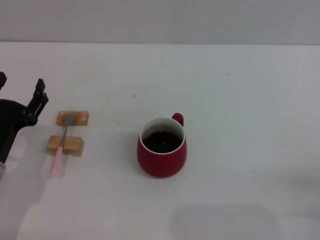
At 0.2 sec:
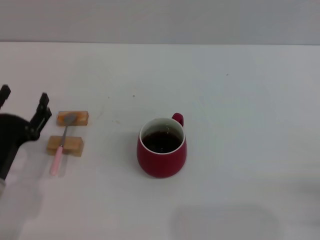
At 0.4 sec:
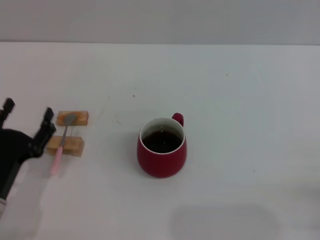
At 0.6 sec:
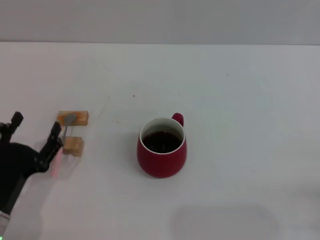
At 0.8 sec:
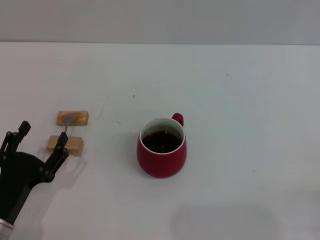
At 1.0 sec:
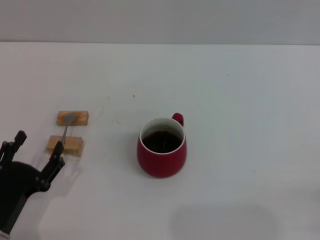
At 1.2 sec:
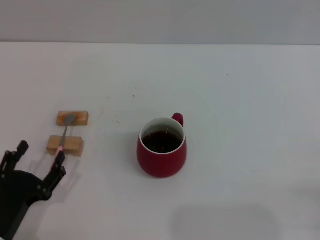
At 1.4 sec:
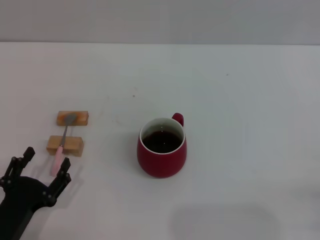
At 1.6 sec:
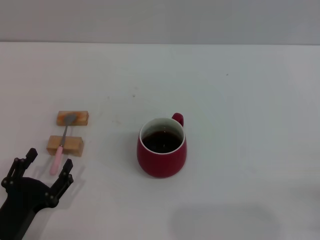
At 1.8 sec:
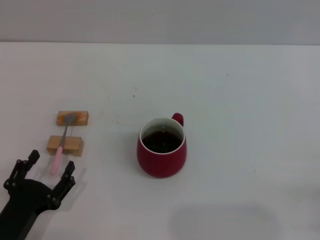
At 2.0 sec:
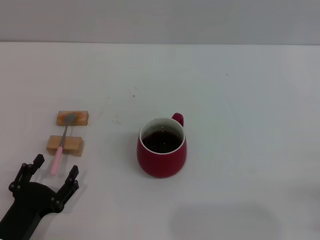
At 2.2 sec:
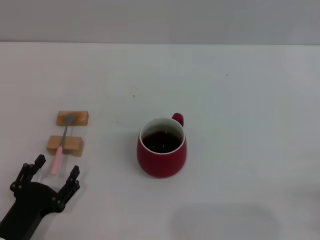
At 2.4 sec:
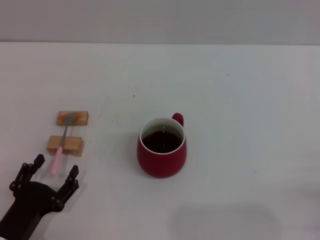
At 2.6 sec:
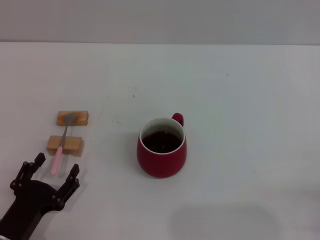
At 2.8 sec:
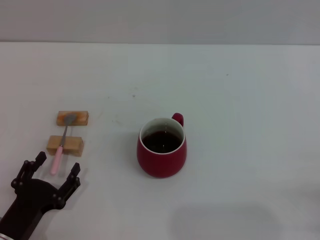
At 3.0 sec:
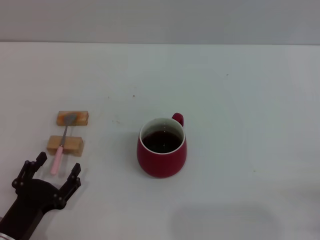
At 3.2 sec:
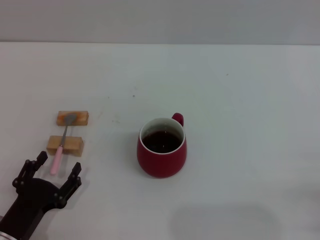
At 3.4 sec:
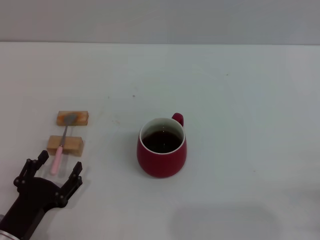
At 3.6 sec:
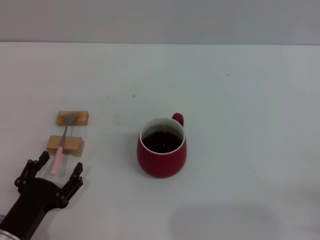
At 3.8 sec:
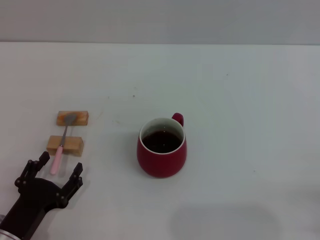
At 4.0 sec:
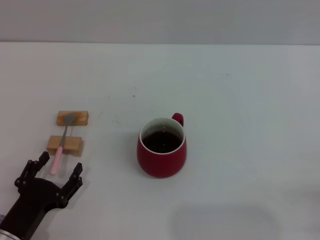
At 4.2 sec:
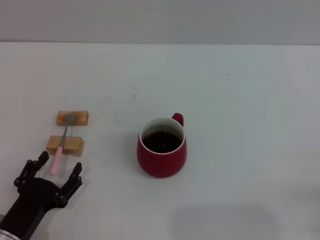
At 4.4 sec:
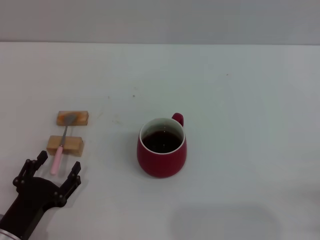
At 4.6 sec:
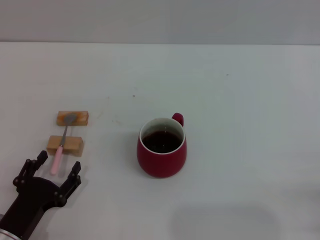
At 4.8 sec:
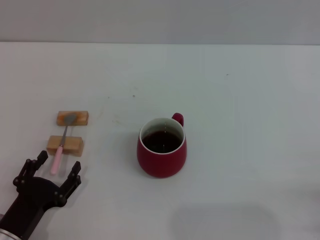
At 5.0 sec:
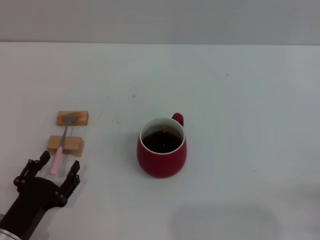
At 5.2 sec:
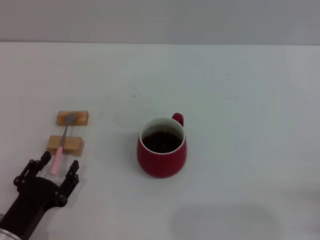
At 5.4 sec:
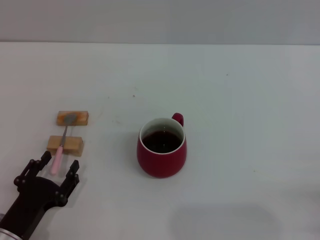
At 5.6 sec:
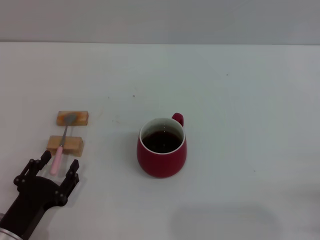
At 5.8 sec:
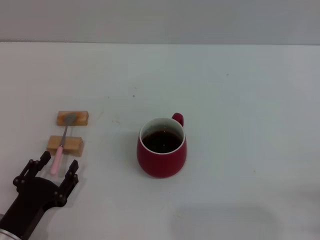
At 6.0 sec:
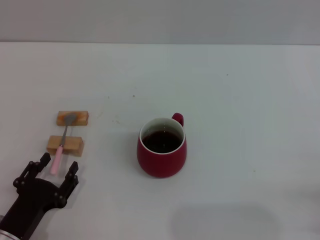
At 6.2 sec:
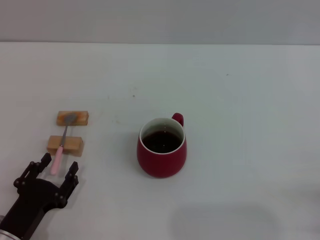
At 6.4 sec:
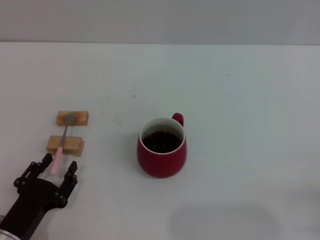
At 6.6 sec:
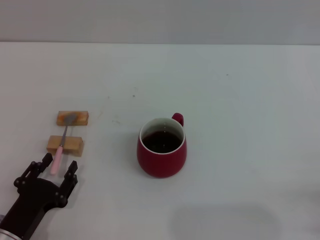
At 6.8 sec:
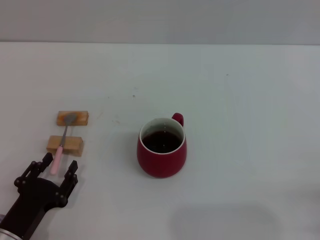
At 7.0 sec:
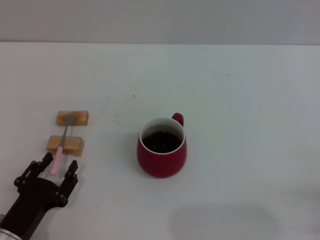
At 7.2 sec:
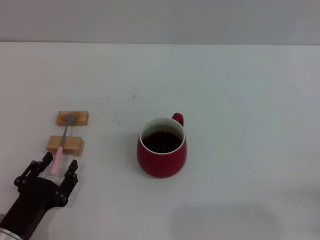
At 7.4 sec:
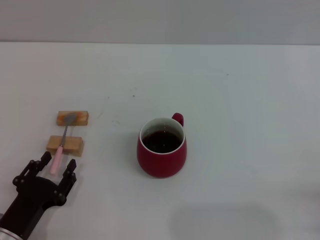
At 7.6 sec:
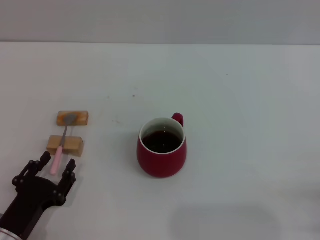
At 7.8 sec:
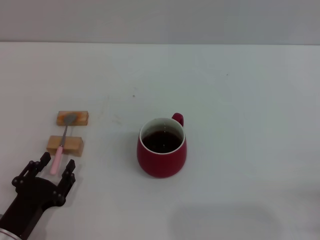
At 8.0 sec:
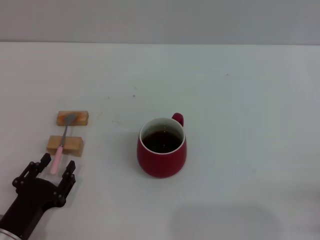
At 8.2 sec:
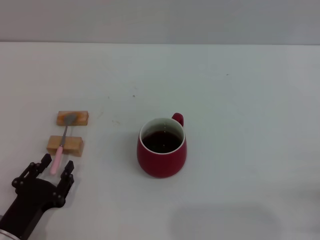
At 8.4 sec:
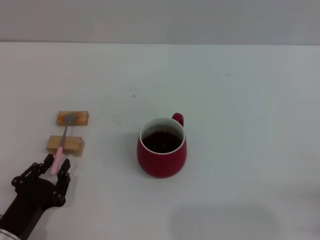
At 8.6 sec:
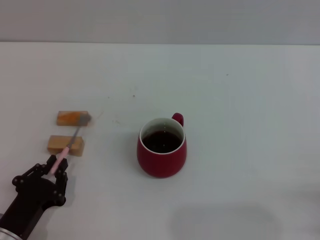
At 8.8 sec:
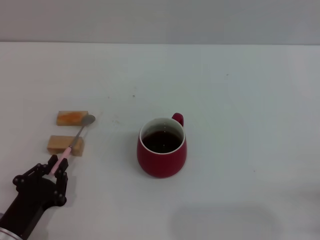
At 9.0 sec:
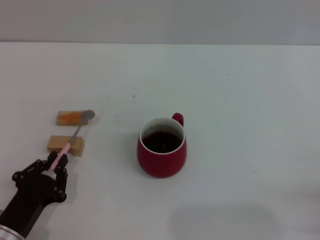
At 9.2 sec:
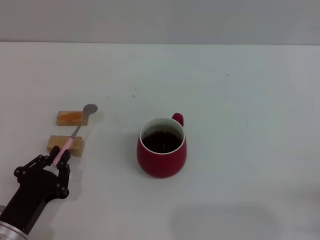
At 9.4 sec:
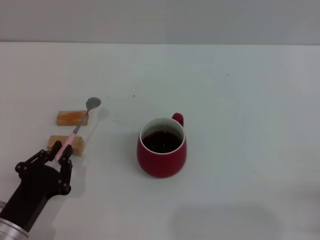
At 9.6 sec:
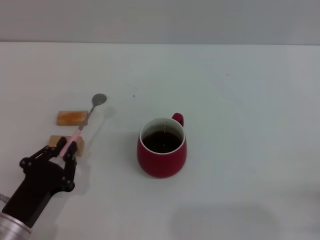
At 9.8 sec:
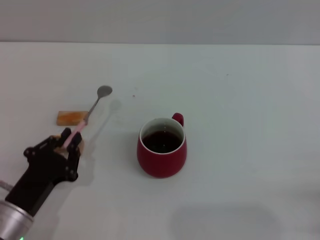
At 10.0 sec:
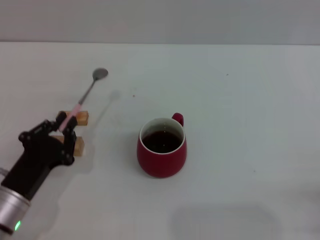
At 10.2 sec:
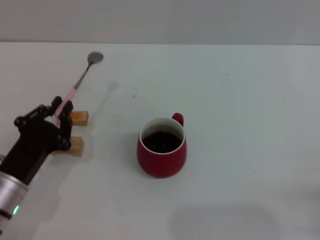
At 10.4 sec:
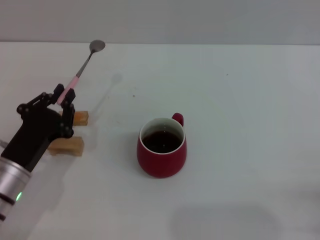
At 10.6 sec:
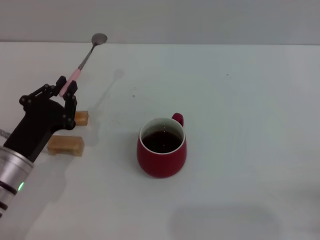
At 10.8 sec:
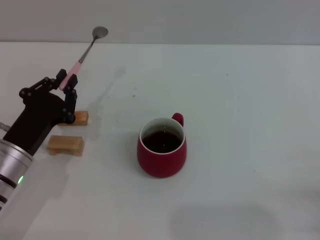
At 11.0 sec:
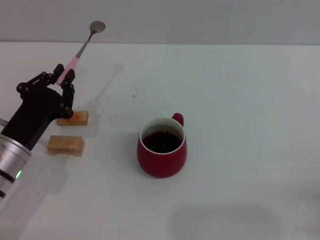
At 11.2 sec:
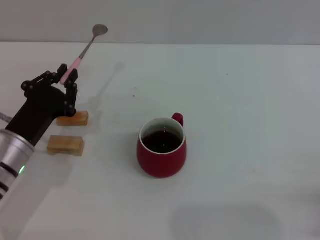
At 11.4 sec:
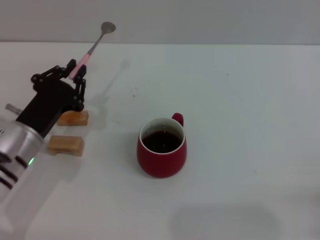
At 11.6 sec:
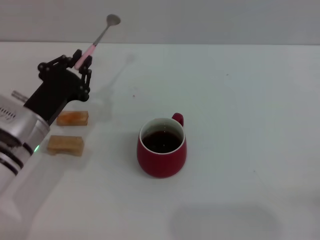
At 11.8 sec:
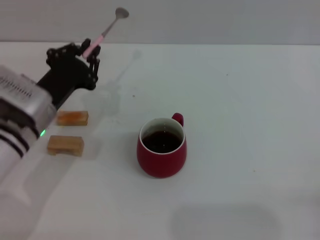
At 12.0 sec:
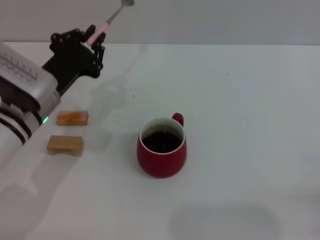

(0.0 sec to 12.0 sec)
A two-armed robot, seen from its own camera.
Task of the whole recording: Move the red cup to the center, lift the pink spoon, stir it three times in the cup, and put the spoon into the cup.
Step, 0.0 sec - 10.2 sec: Pick up the spoon with the left gripper.
0.0 sec - 1.6 sec: The left gripper goes about 10 cm backward.
1.6 sec - 4.4 sec: Neither gripper changes place.
4.4 sec - 7.6 sec: Both grippers stay about where they are.
7.6 sec - 9.0 sec: The left gripper closes up.
9.0 sec - 10.4 sec: The left gripper is displaced forward by about 10 cm.
10.4 sec - 12.0 sec: The left gripper shifts about 10 cm forward and upward.

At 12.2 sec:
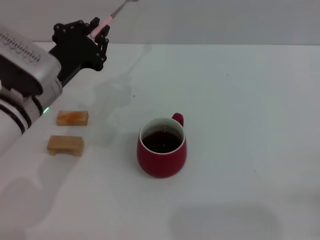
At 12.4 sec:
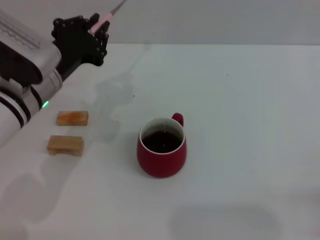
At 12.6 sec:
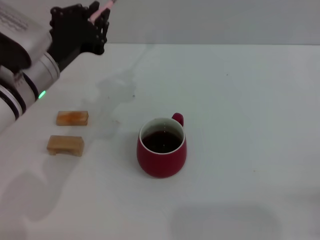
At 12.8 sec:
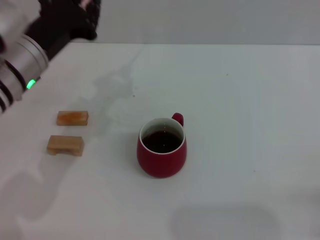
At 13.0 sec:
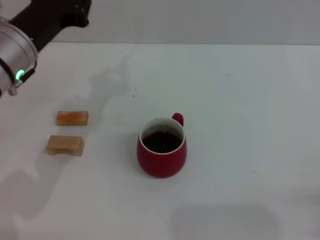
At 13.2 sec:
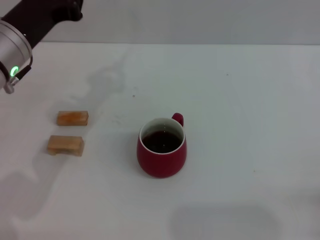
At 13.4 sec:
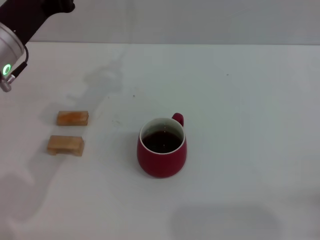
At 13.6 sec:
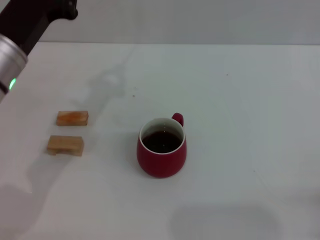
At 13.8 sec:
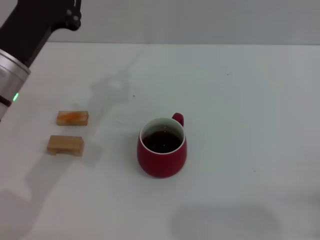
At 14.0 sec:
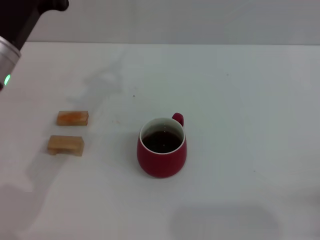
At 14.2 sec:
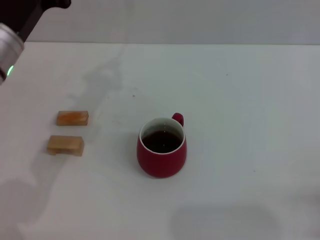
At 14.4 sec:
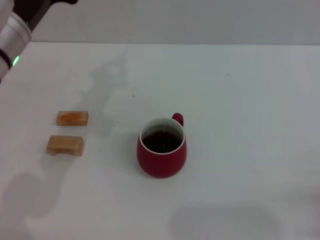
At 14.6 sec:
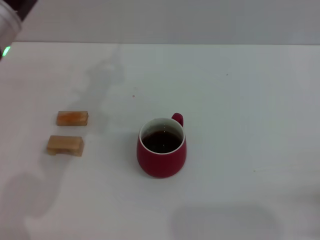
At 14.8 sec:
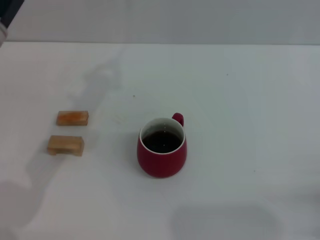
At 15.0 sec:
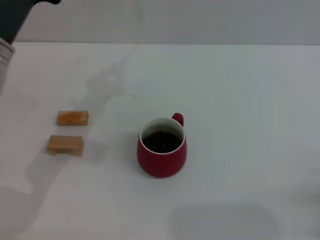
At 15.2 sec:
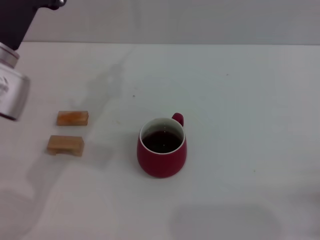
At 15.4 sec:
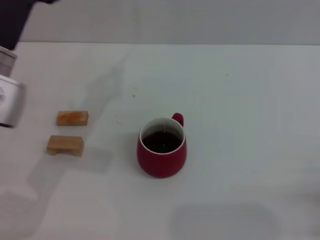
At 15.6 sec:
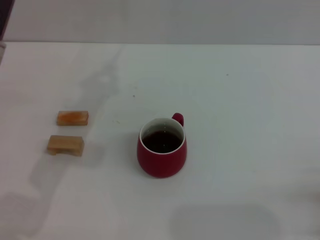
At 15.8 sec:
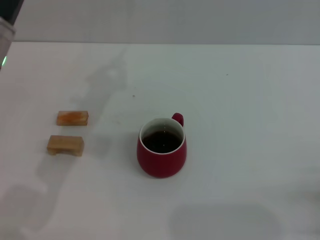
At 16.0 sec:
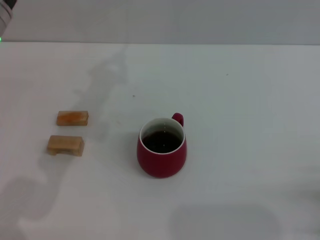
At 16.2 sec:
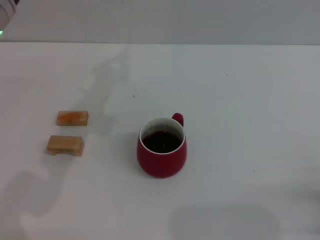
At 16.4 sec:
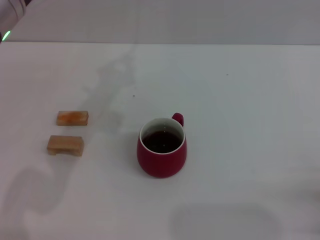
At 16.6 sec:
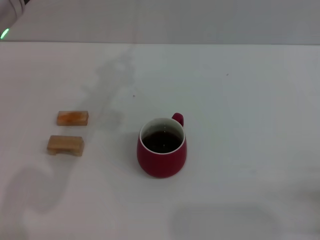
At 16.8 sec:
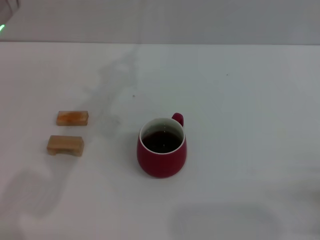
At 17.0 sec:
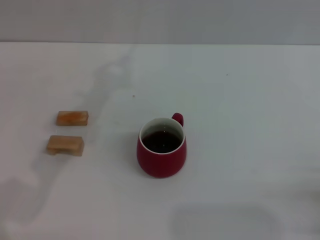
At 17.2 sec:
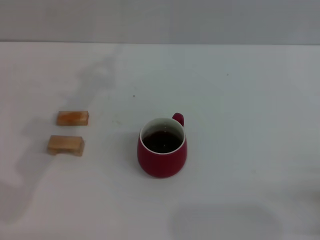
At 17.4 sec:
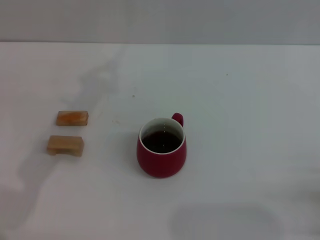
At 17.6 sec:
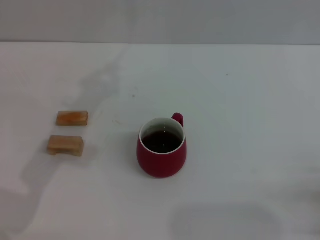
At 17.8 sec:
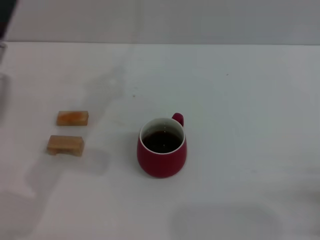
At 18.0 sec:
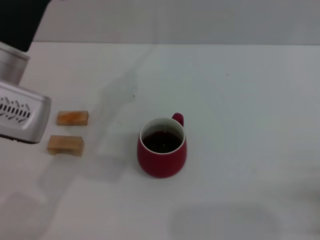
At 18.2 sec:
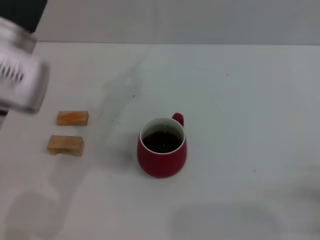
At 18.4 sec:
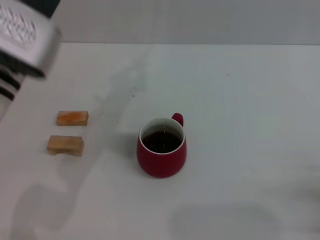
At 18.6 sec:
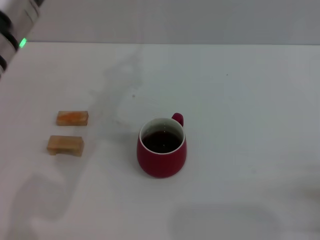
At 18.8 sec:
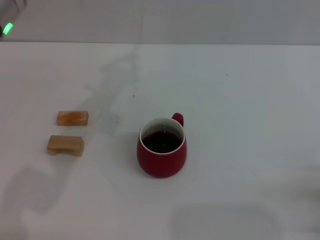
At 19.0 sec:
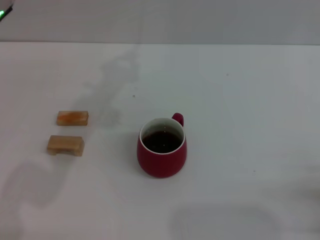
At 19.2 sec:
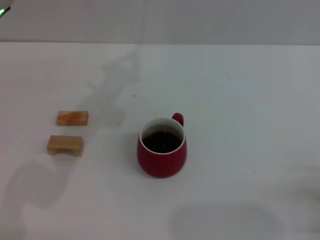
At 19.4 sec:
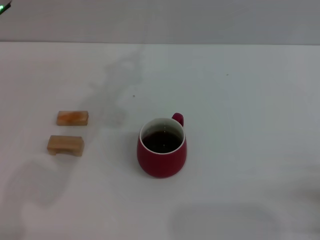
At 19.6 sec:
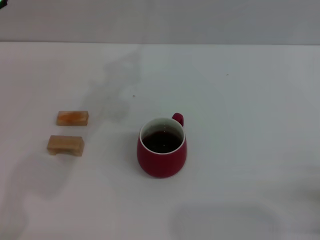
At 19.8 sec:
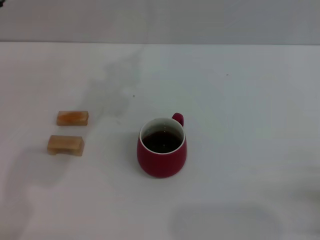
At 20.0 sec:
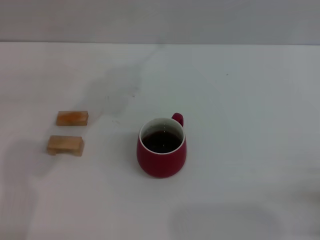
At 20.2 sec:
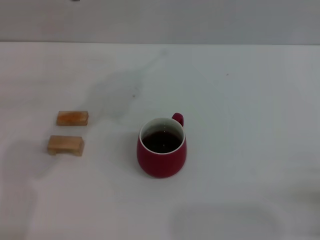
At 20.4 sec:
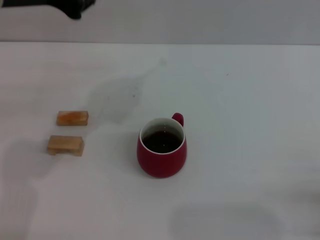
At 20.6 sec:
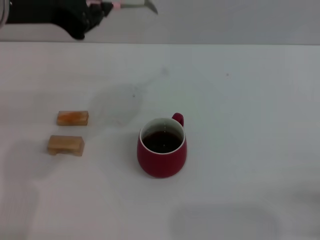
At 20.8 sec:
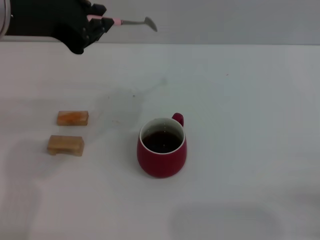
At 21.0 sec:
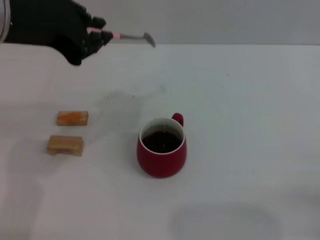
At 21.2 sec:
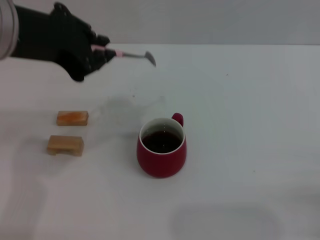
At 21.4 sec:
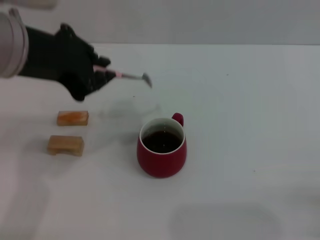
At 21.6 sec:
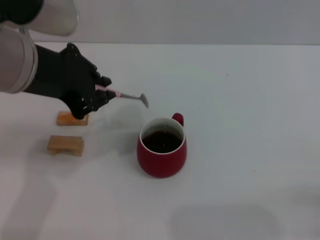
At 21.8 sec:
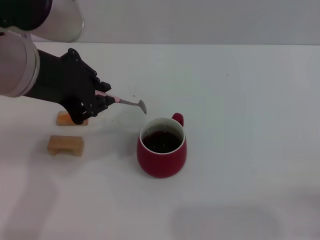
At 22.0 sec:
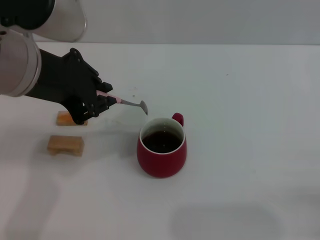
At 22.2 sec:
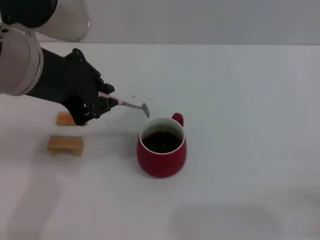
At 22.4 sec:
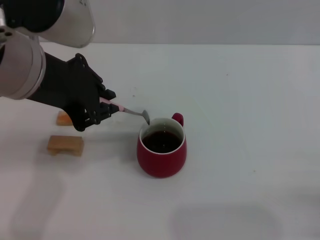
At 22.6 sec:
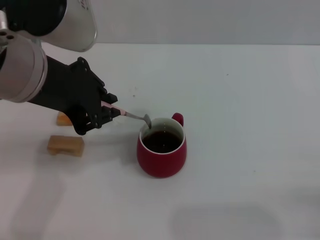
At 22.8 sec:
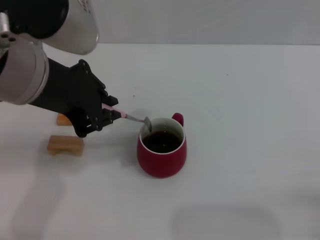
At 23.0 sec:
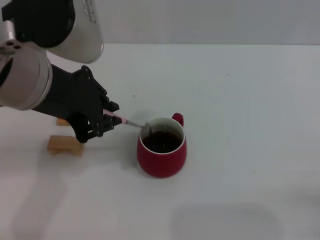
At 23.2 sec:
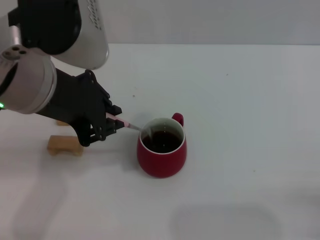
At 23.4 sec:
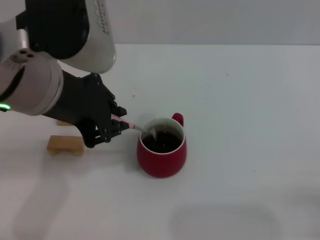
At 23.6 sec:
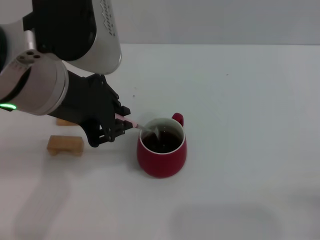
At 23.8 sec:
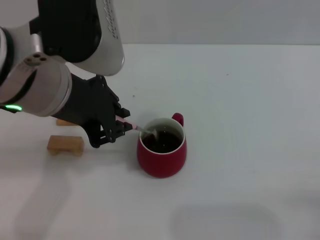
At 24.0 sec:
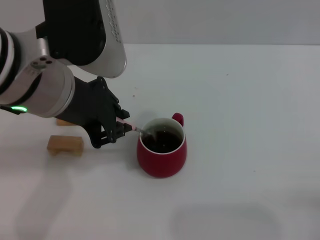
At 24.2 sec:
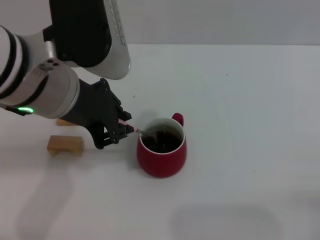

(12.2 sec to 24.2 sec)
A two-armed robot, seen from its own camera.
Task of the whole recording: Move the red cup to the center, lift the pink spoon, stir it three times in the cup, and put the spoon into the cup.
15.2 sec - 16.6 sec: The left gripper moves upward, roughly 10 cm.
16.6 sec - 18.2 sec: The left gripper changes place by roughly 5 cm.
18.2 sec - 19.8 sec: The left gripper heads upward, covering about 10 cm.
21.2 sec - 22.6 sec: The grippers move only a little.
22.6 sec - 24.2 sec: There are only small adjustments of the grippers.
